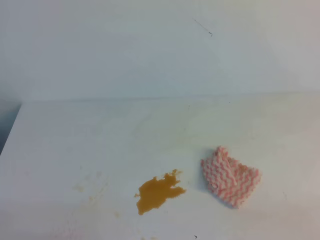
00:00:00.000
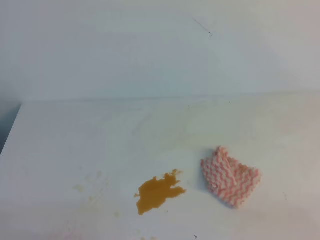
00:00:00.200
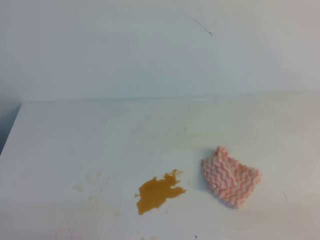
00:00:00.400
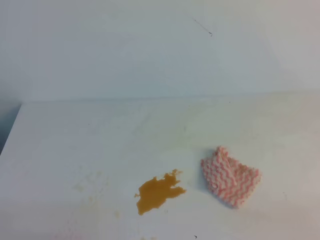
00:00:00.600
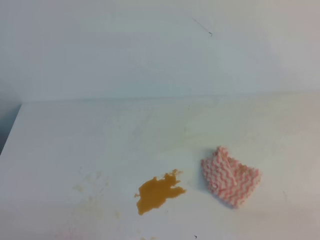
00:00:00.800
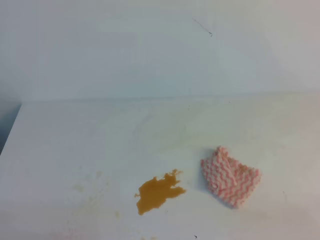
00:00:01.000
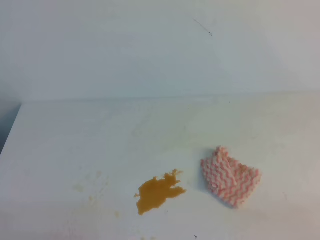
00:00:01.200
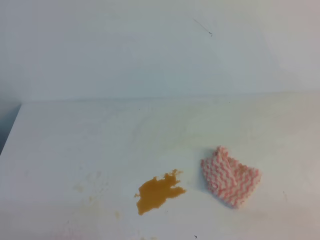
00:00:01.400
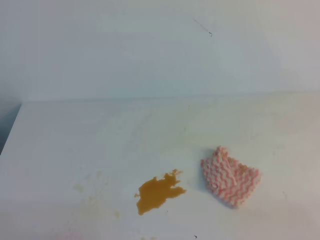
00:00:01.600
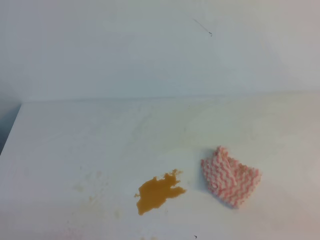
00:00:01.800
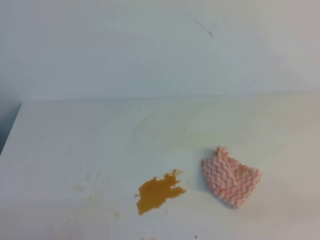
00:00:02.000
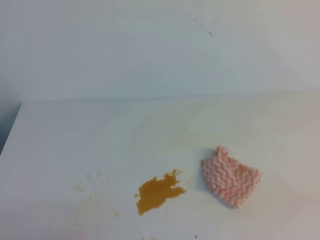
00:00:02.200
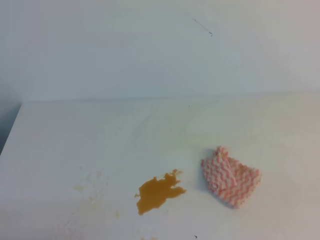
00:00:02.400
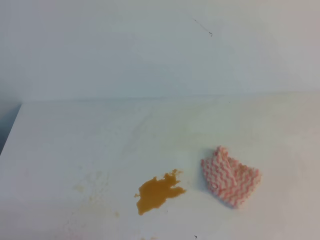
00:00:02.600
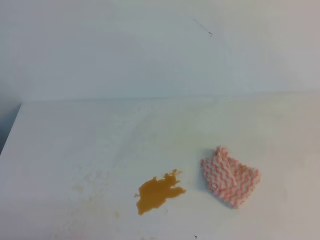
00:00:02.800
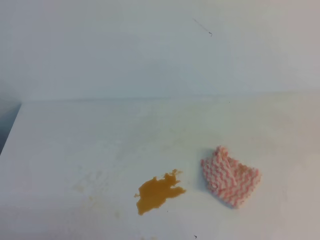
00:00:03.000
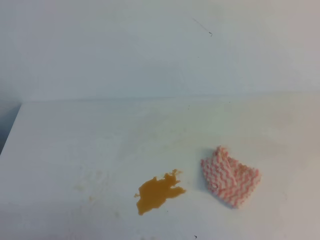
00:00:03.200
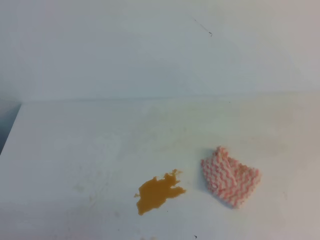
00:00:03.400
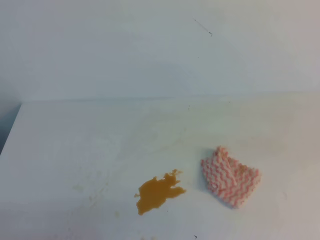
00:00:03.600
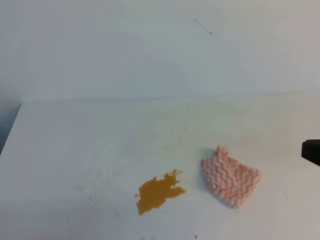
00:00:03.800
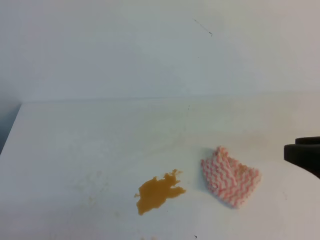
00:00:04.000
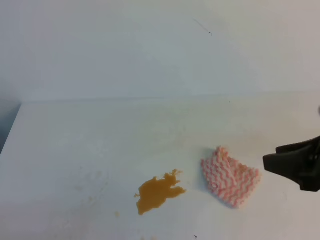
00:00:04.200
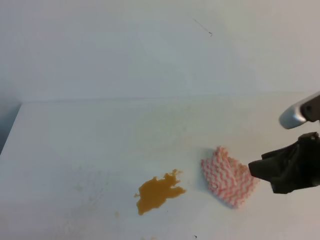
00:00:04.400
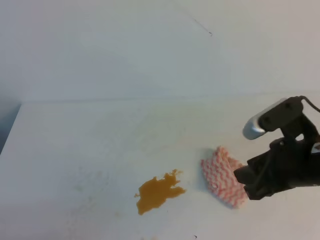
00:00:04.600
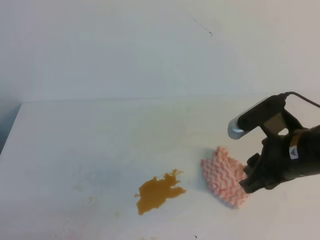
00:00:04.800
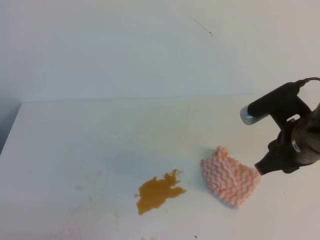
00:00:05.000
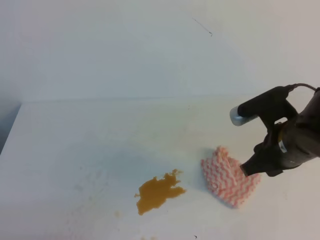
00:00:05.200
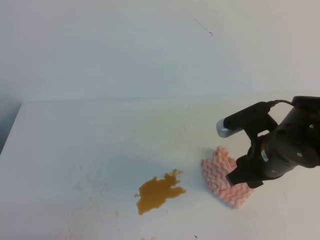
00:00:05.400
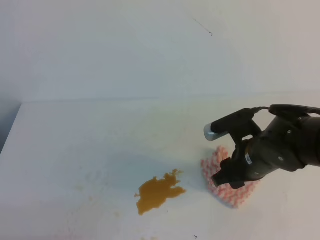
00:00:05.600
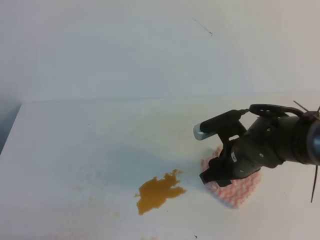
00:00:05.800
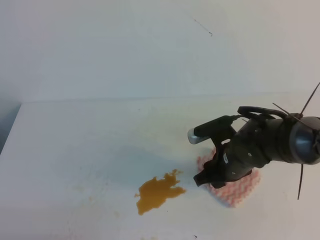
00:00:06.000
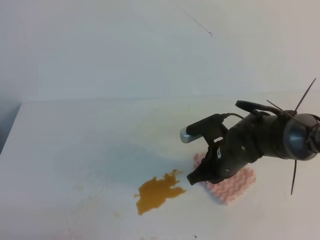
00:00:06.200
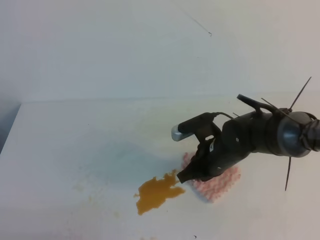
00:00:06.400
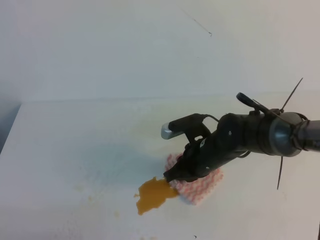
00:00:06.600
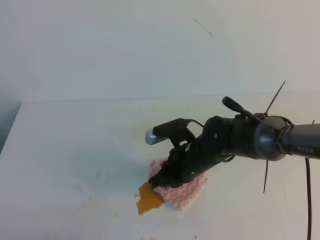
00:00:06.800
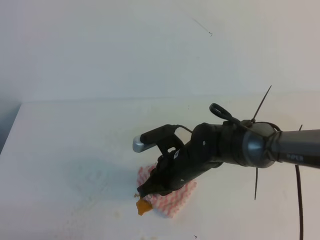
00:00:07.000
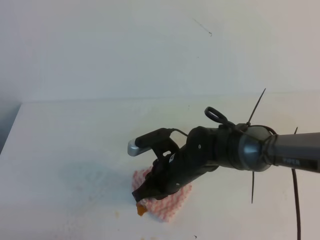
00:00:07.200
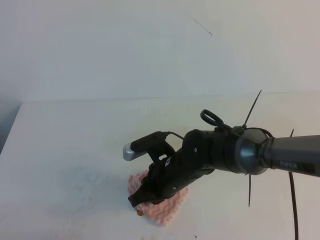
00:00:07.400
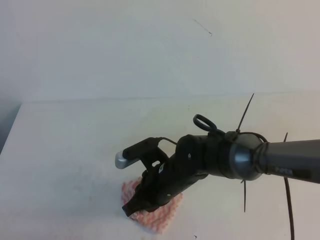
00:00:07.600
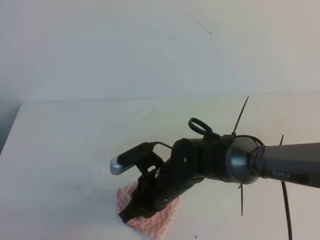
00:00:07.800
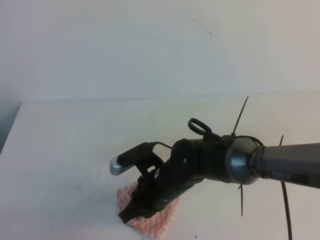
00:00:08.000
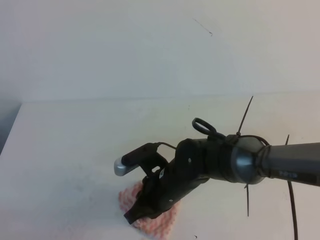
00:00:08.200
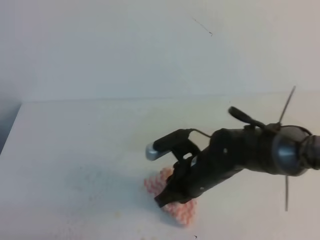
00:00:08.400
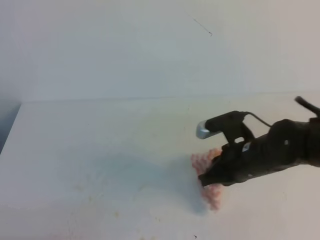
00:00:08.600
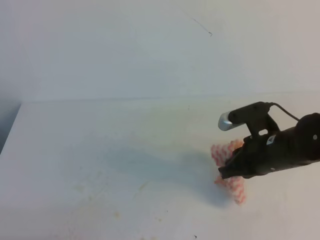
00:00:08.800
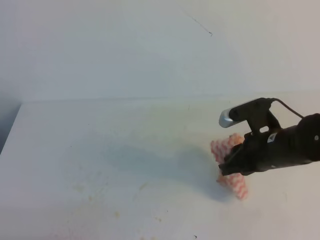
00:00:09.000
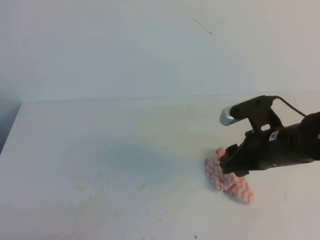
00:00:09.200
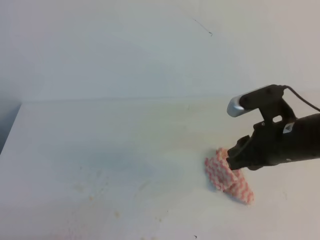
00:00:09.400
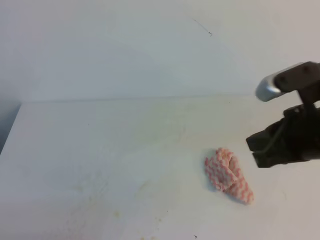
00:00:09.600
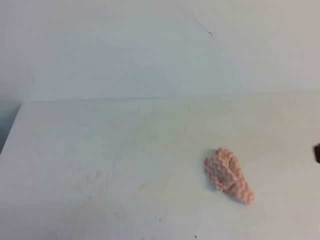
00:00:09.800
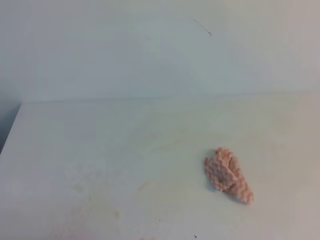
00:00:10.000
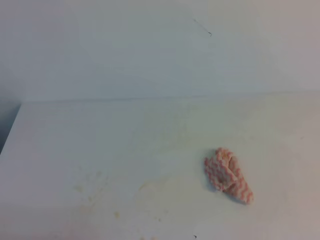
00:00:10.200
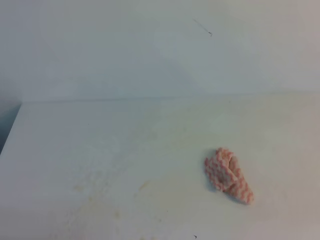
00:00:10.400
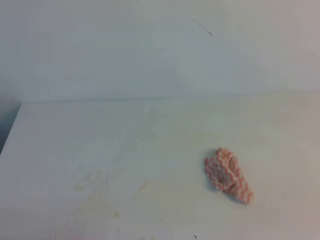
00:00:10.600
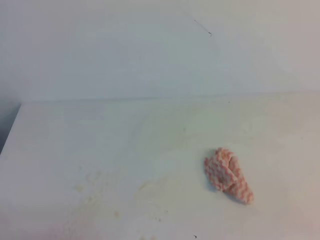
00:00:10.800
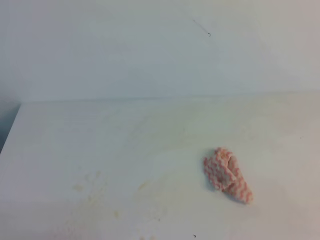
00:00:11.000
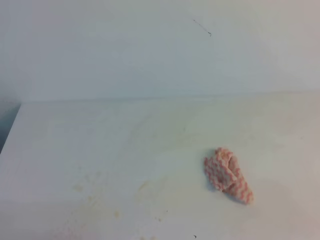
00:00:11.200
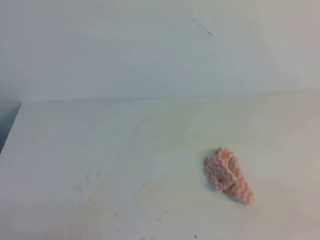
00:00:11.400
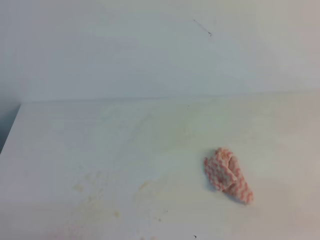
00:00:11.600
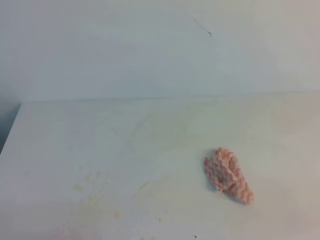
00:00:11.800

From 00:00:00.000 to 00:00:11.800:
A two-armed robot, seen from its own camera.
From 00:00:00.000 to 00:00:01.400: Both grippers stay about where they are.
From 00:00:03.000 to 00:00:04.400: The right gripper moves forward, to the left and downward, some 20 cm, and opens its fingers.
From 00:00:04.400 to 00:00:06.000: The right gripper shifts about 20 cm downward, to the left and forward.
From 00:00:06.000 to 00:00:07.400: The right gripper is displaced to the left by some 10 cm, and closes its fingers.
From 00:00:07.400 to 00:00:08.800: The right gripper heads to the right and upward, covering about 15 cm.
From 00:00:08.800 to 00:00:10.400: The right gripper is displaced backward, to the right and upward by roughly 35 cm, and opens and closes again.

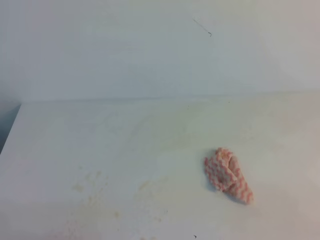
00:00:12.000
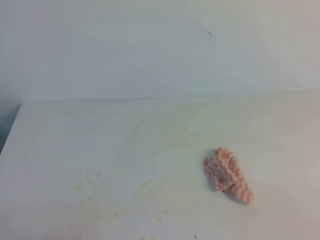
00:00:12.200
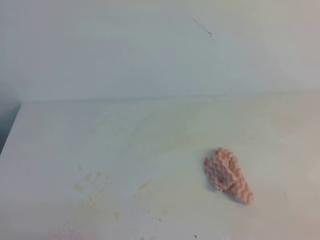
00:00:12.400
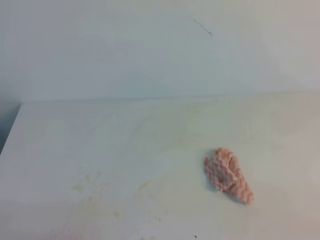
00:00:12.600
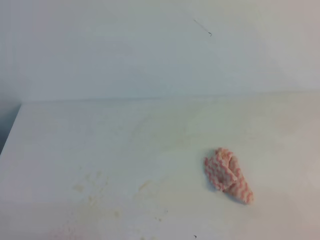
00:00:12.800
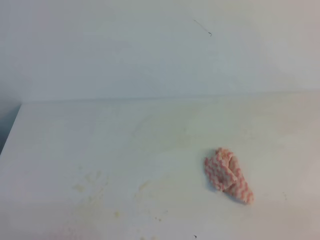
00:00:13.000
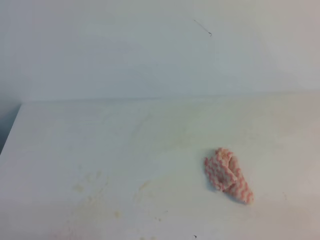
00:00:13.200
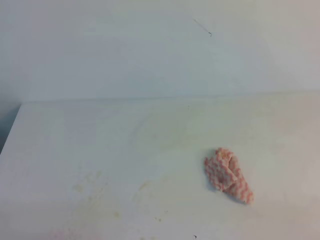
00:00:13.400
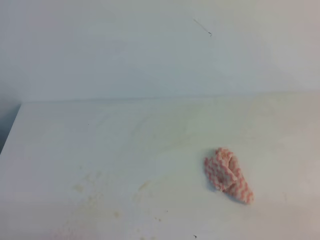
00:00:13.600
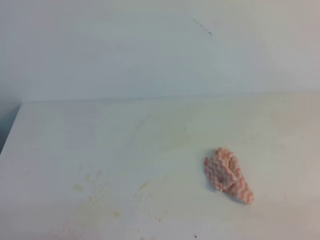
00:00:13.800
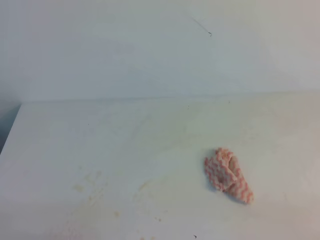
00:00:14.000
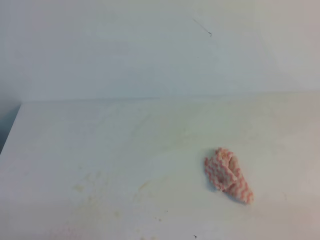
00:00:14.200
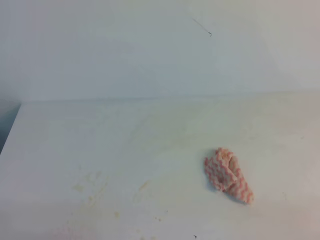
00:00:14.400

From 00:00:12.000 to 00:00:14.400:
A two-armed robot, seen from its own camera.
From 00:00:13.200 to 00:00:14.400: The two grippers keep their place.

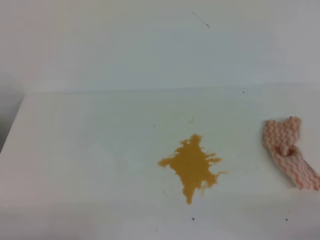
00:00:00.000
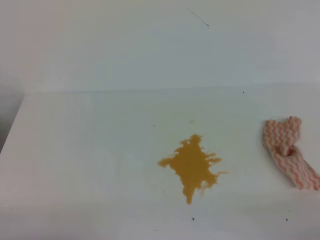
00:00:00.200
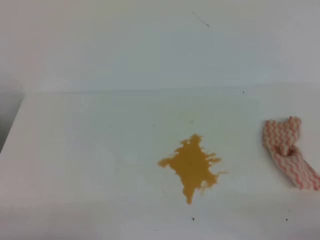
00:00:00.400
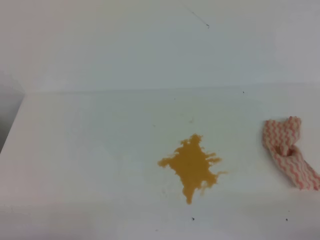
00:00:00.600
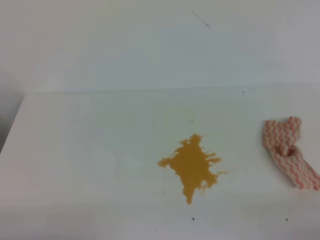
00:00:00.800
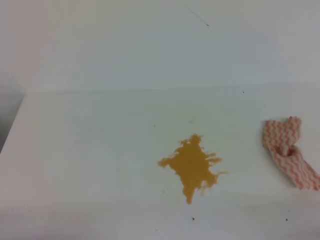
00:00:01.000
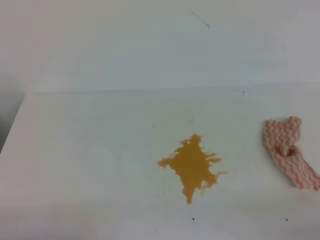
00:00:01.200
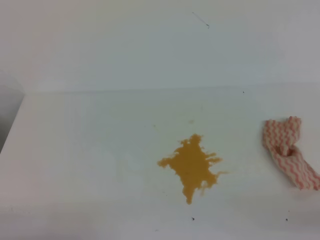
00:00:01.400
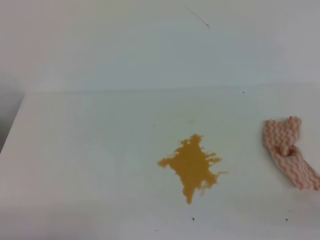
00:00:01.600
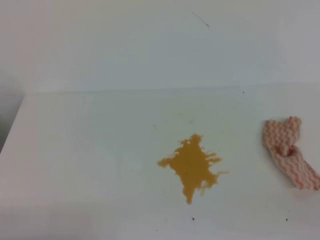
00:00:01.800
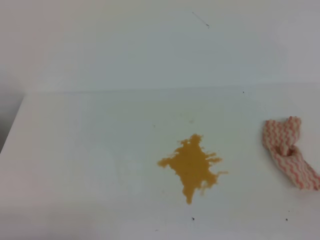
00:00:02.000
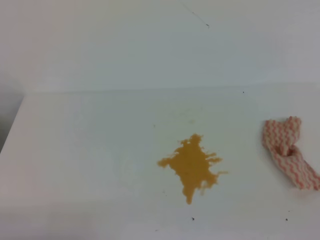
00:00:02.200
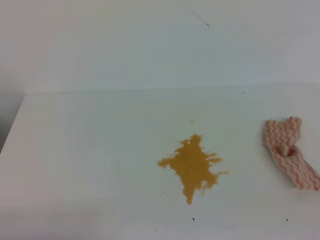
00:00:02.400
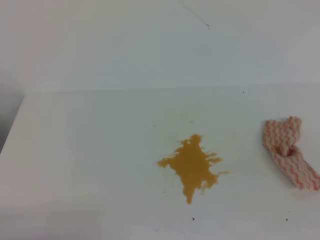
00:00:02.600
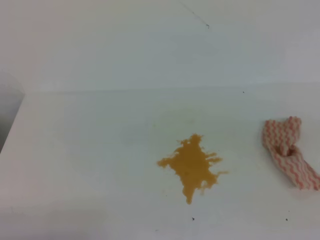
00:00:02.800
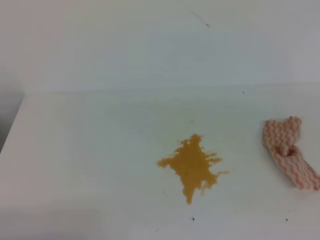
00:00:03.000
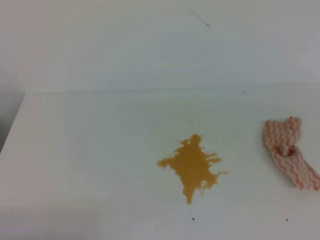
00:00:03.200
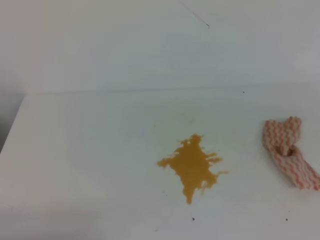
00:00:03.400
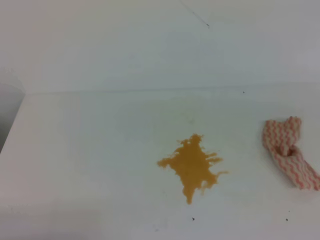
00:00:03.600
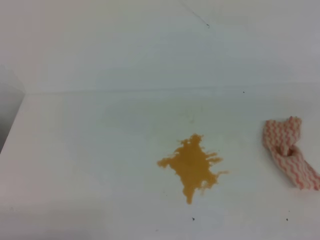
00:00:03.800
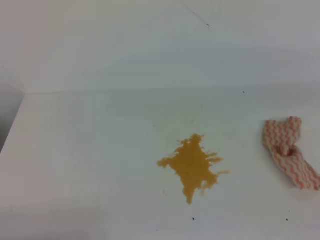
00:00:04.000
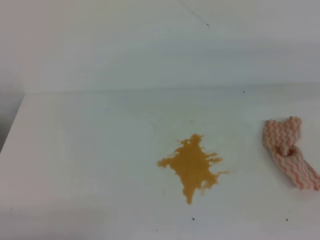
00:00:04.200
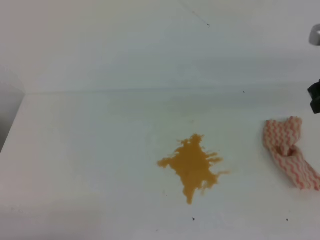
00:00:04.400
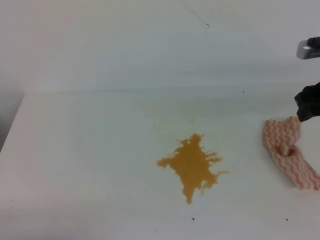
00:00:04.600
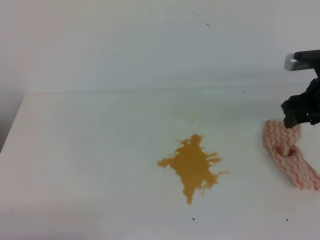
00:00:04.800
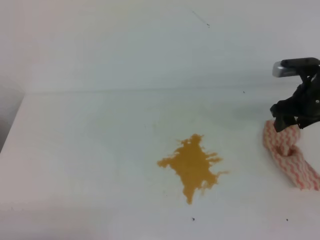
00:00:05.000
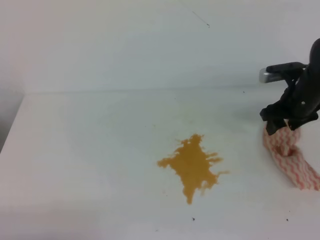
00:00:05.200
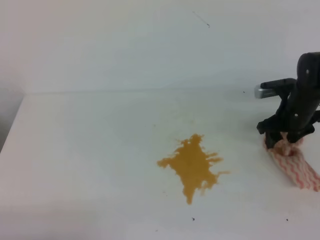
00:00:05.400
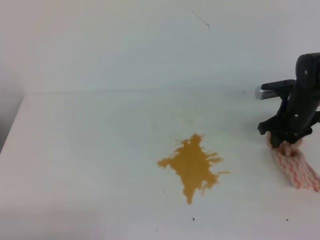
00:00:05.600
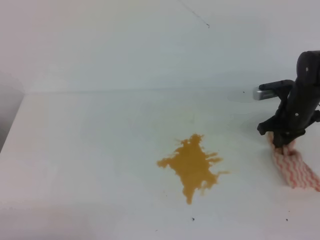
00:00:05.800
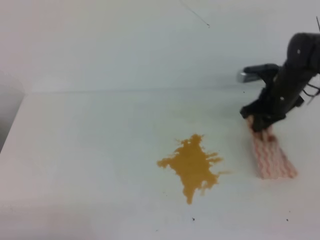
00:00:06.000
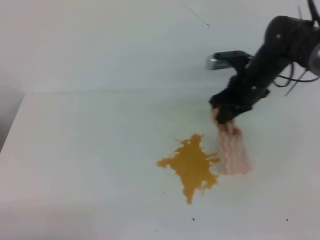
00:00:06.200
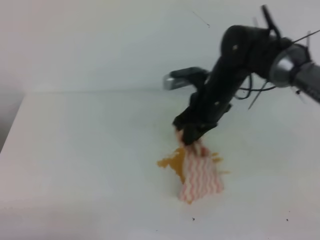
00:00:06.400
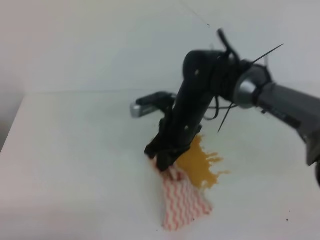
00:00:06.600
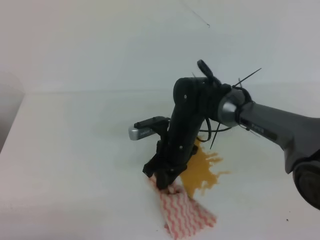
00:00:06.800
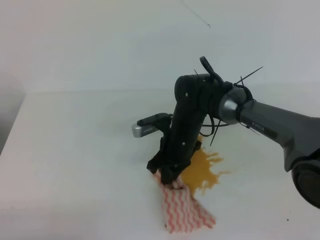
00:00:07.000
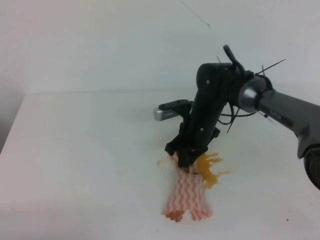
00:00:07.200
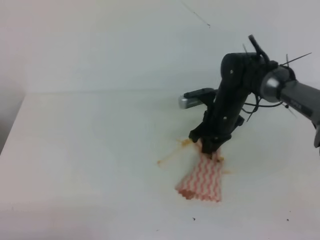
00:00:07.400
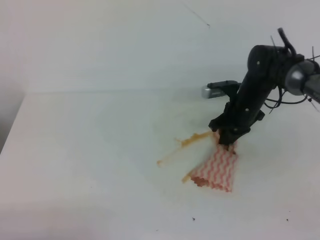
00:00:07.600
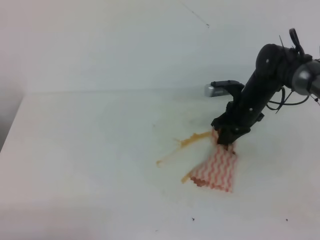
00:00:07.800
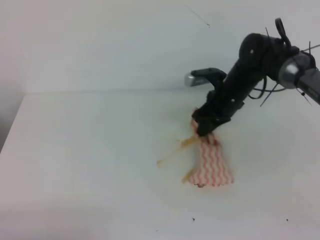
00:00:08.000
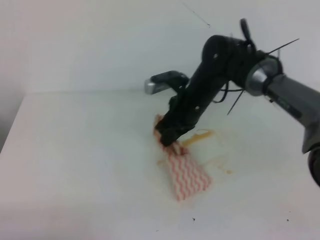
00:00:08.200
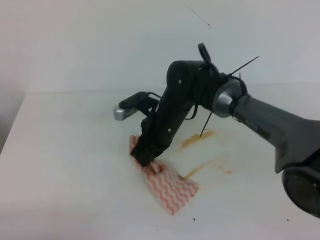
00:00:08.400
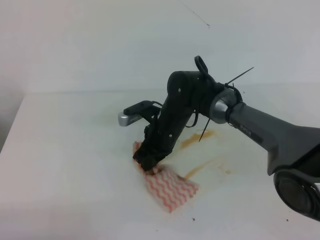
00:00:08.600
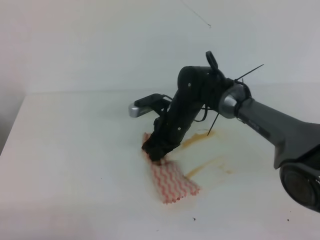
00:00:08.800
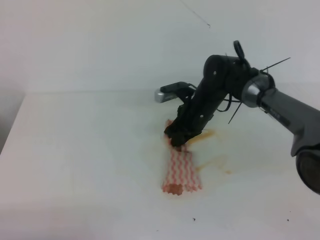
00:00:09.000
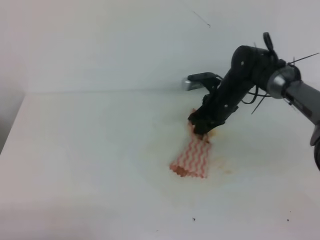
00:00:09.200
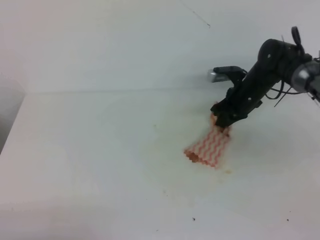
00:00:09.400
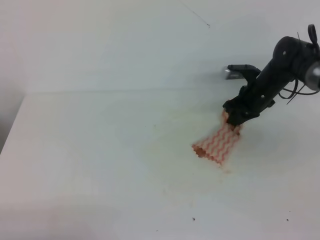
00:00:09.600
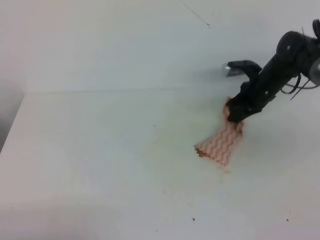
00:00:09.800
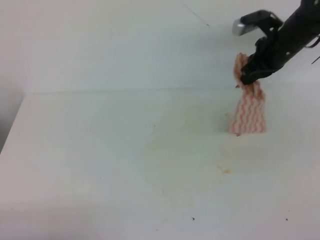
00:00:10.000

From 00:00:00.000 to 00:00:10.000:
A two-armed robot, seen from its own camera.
From 00:00:04.200 to 00:00:05.800: The right gripper shifts roughly 25 cm downward and forward, and opens and closes again.
From 00:00:05.800 to 00:00:07.200: The right gripper travels to the left by approximately 15 cm.
From 00:00:07.200 to 00:00:08.600: The right gripper moves to the left, some 5 cm.
From 00:00:08.600 to 00:00:10.000: The right gripper goes about 25 cm to the right and upward.
